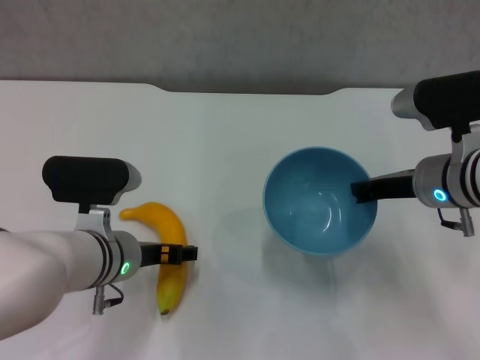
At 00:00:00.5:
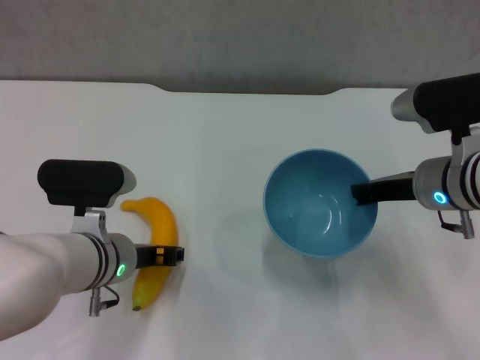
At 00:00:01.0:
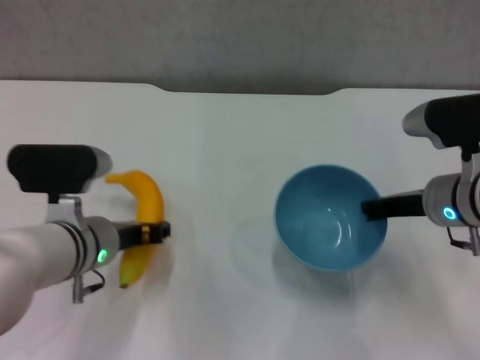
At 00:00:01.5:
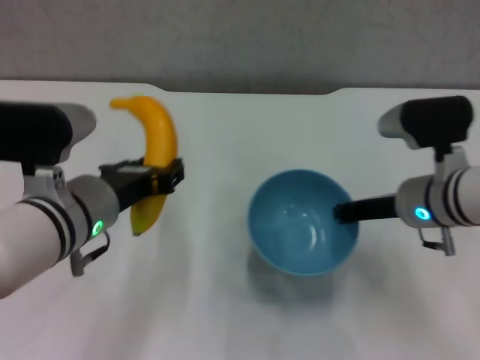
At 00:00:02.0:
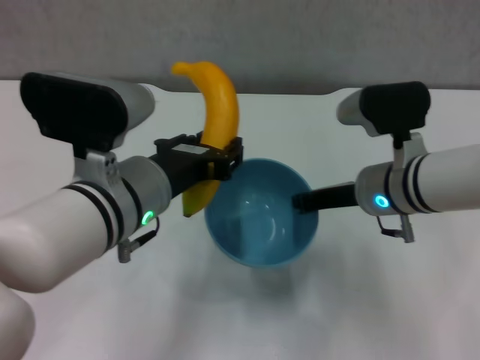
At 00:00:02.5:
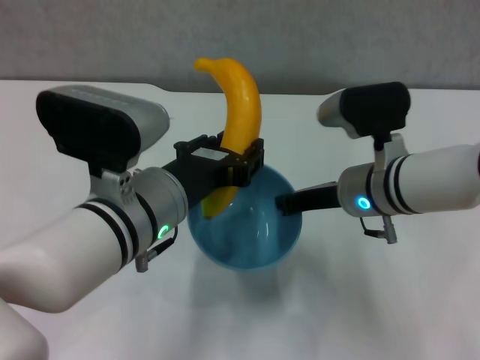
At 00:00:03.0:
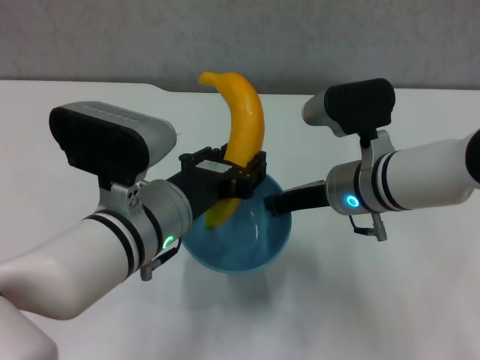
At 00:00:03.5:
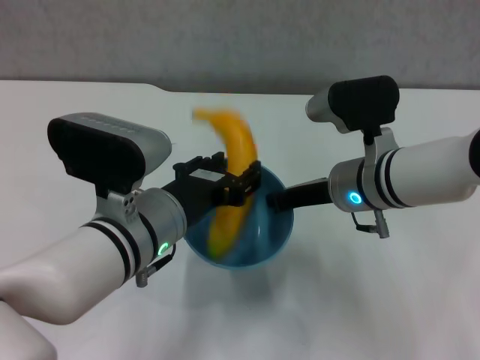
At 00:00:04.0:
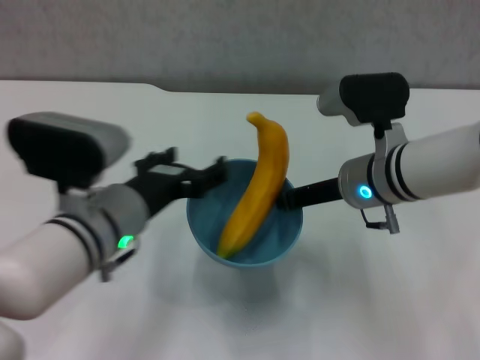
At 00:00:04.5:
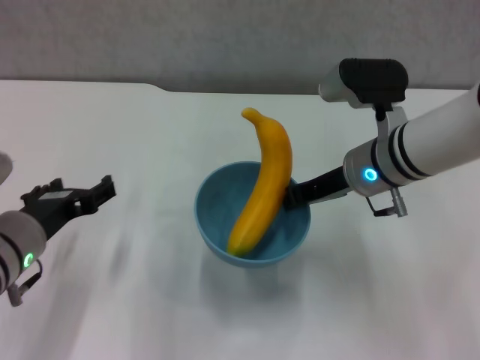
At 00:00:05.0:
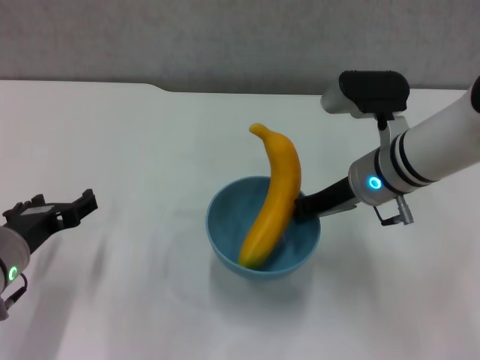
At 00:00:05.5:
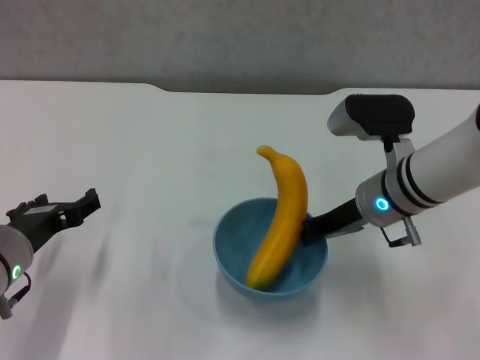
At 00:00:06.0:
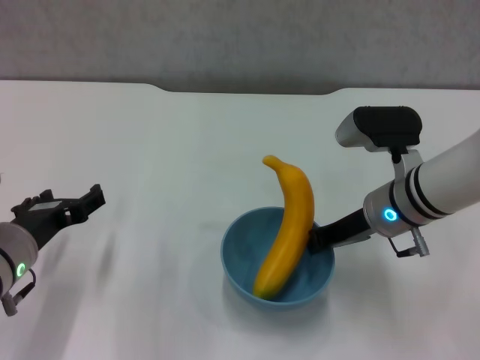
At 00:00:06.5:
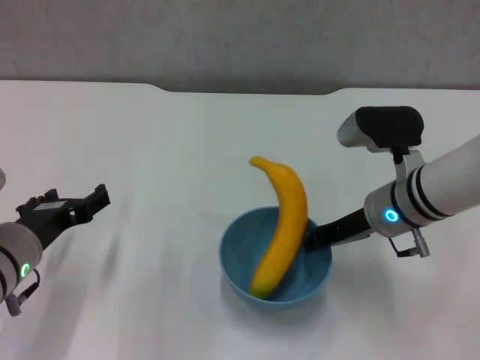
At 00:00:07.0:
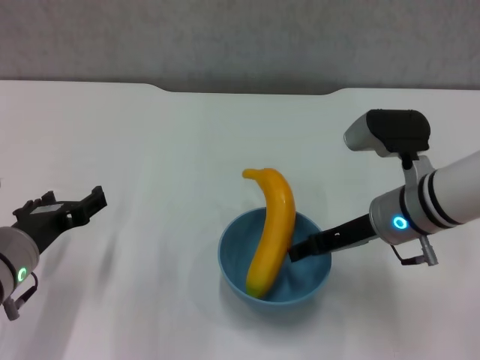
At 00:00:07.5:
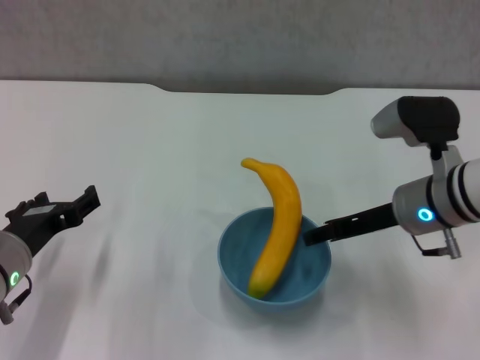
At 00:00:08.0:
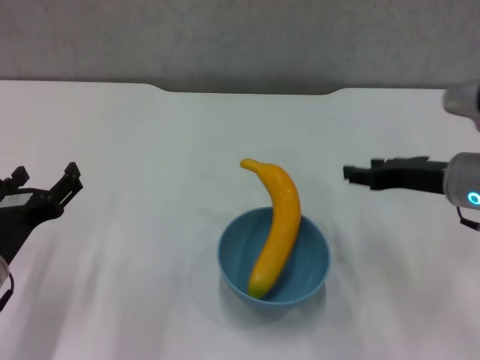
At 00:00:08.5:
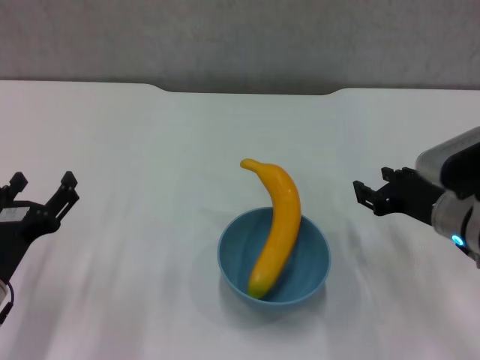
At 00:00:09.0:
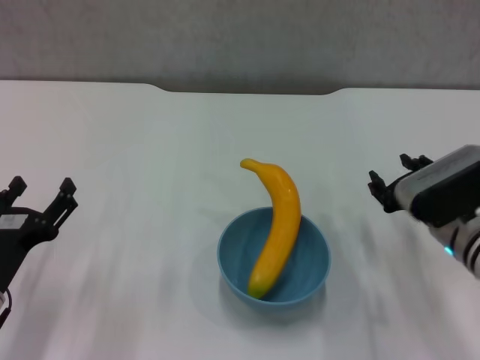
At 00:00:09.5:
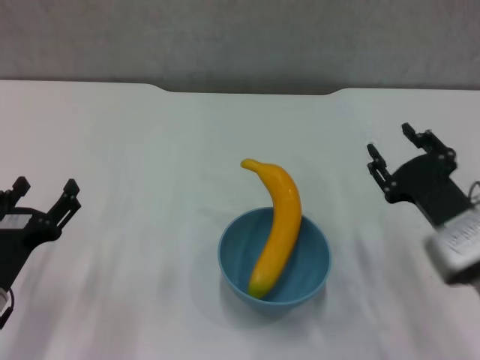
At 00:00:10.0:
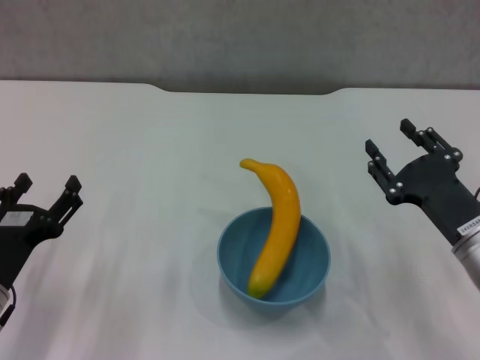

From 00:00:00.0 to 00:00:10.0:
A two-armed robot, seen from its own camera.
Step, from 00:00:01.0 to 00:00:03.5: Place the banana in the blue bowl with left gripper.
Step, from 00:00:04.0 to 00:00:07.5: Place the bowl on the table with right gripper.
From 00:00:00.0 to 00:00:02.0: The left gripper heads upward, covering about 10 cm, and closes its fingers. The right gripper goes roughly 5 cm to the left.
From 00:00:02.0 to 00:00:04.0: The left gripper opens its fingers.
From 00:00:04.0 to 00:00:06.0: The left gripper goes roughly 10 cm to the left.
From 00:00:06.0 to 00:00:08.0: The right gripper shifts roughly 5 cm to the right, and opens up.
From 00:00:08.0 to 00:00:10.0: The right gripper is displaced downward and backward by approximately 10 cm.
